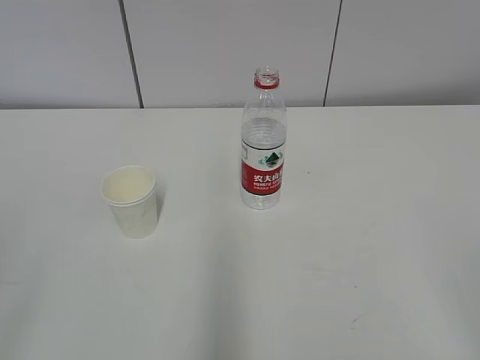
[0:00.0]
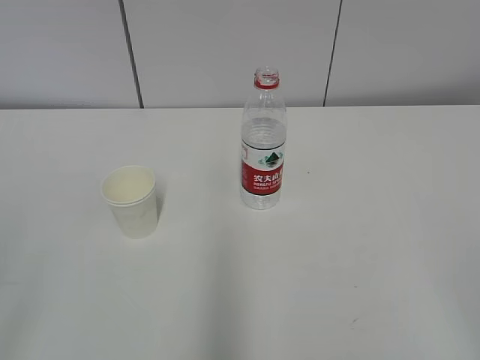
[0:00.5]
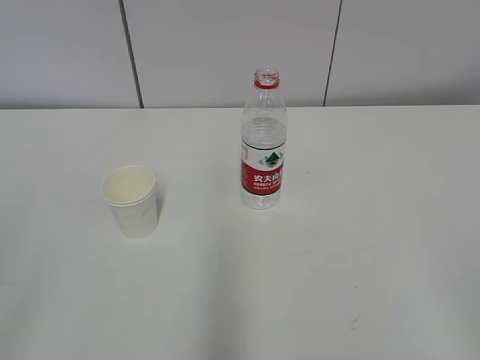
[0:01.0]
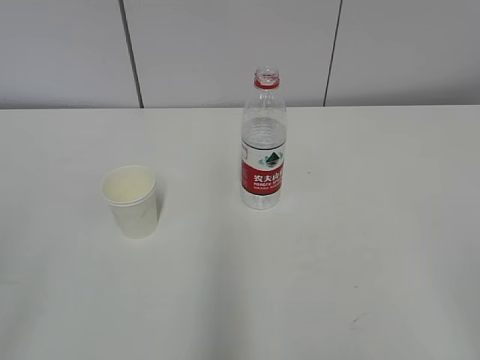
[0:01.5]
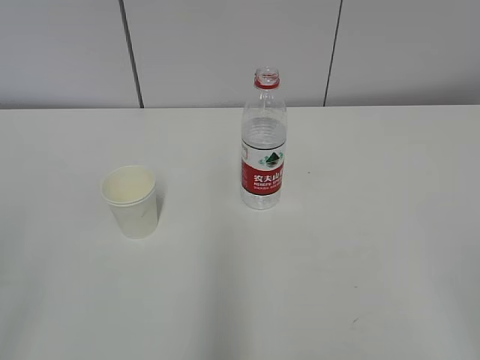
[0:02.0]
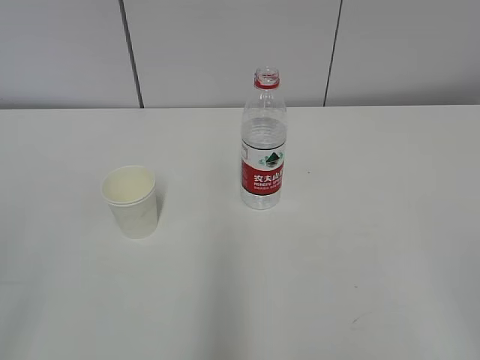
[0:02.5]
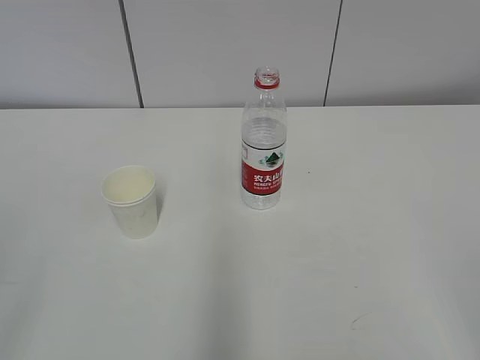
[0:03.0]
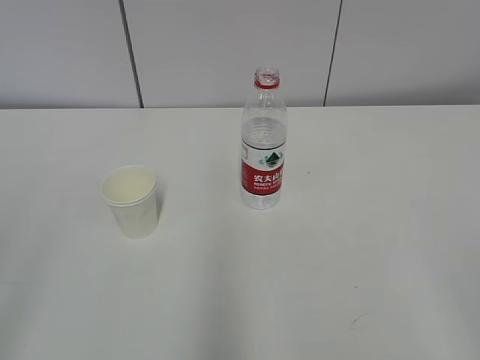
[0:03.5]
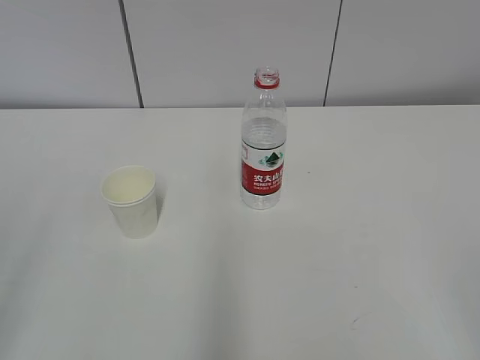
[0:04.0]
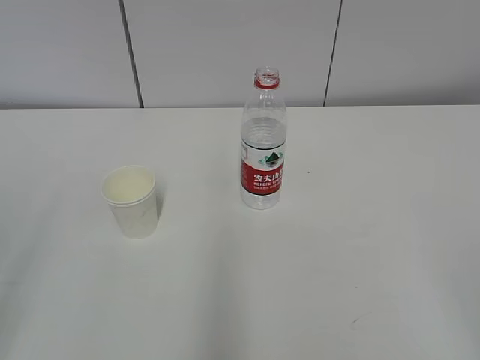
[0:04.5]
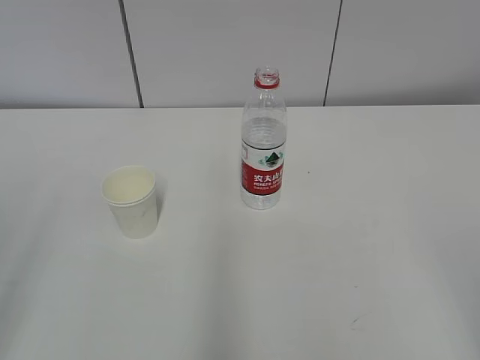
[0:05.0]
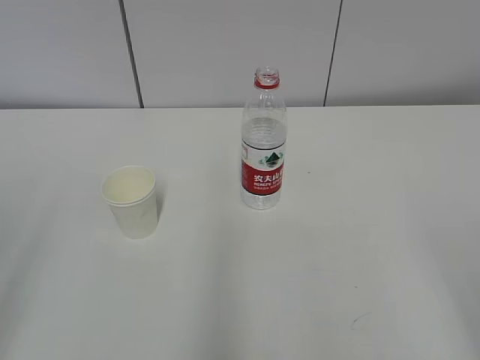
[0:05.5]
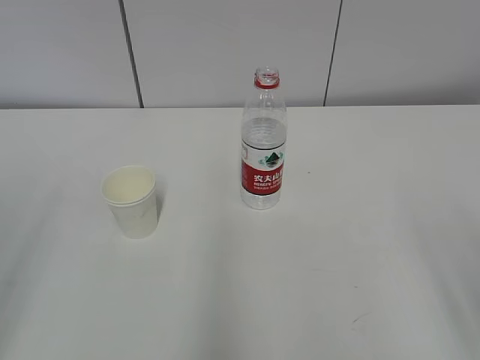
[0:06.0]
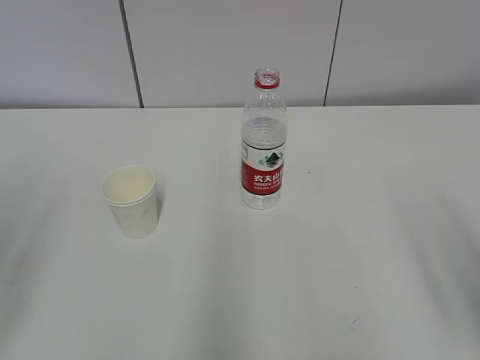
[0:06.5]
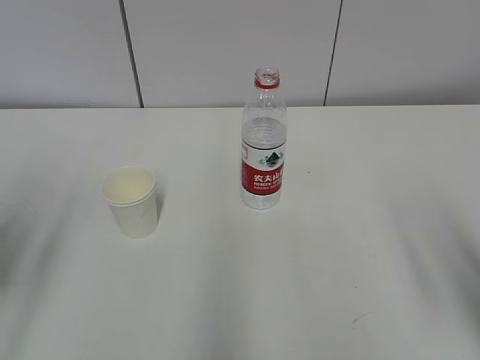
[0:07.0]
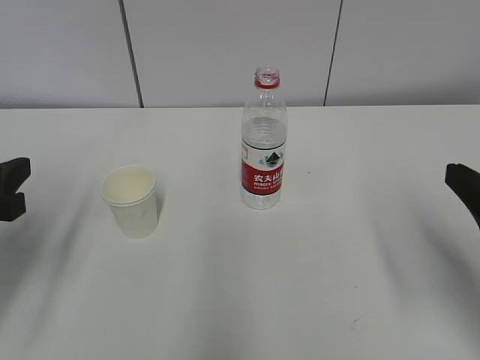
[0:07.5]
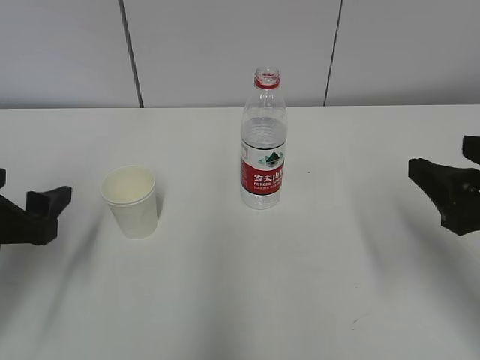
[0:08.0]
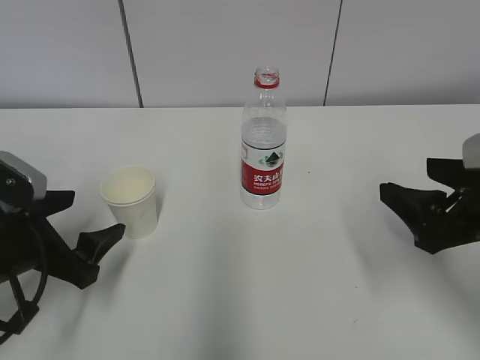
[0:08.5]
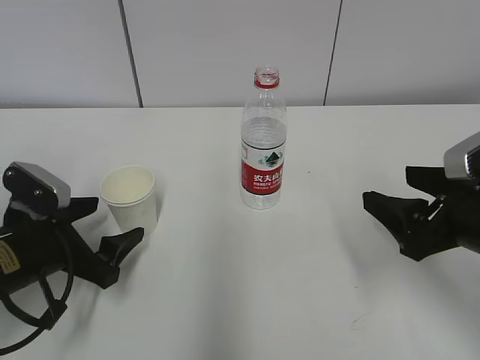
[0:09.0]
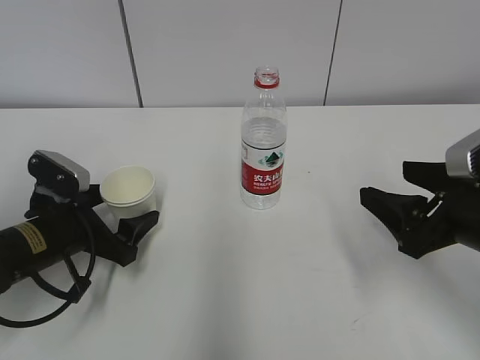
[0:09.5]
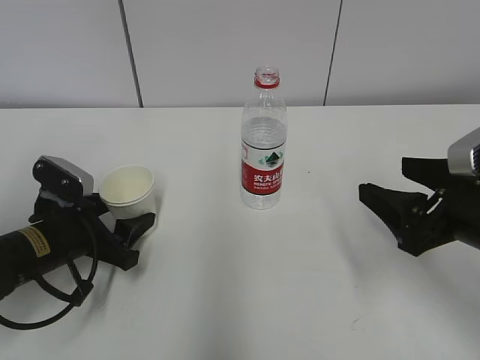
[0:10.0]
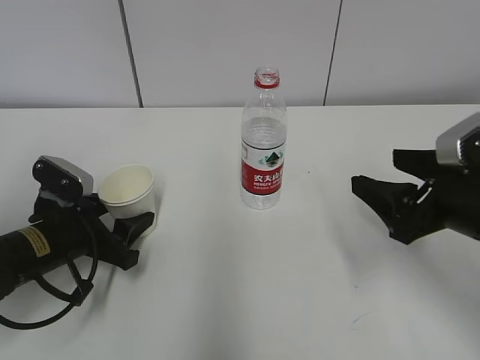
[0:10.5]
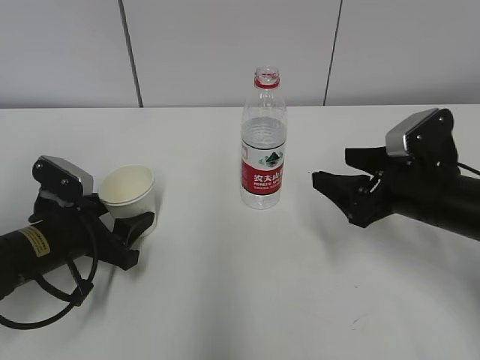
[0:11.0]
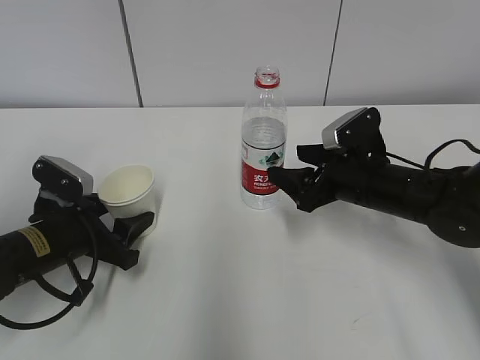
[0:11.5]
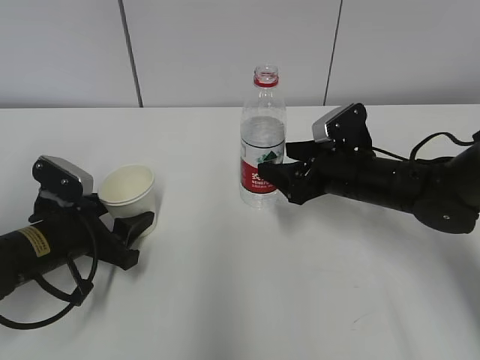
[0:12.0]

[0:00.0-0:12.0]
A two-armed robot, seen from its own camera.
Step, 0.0 to 8.0 s: Grab the paper cup with the left hand.
Step, 8.5 to 11.0 s: Grab the water bottle with the right hand.
6.0 to 8.0 s: The right gripper goes about 15 cm forward. The left gripper travels forward and downward by roughly 20 cm, and opens.
8.0 to 10.0 s: The right gripper moves approximately 5 cm; the left gripper is displaced downward and forward by approximately 10 cm, and closes its fingers.
10.0 to 12.0 s: The right gripper moves forward, downward and to the left, about 15 cm.

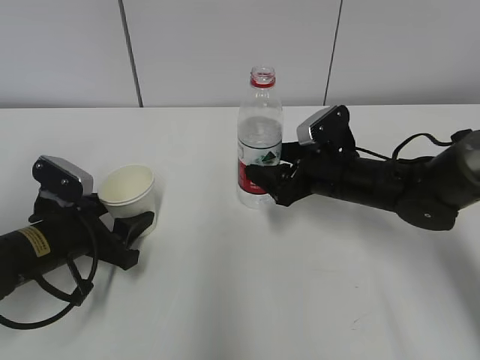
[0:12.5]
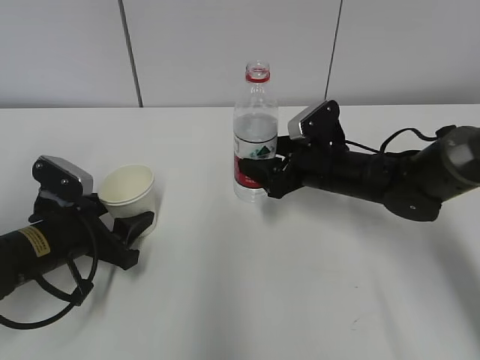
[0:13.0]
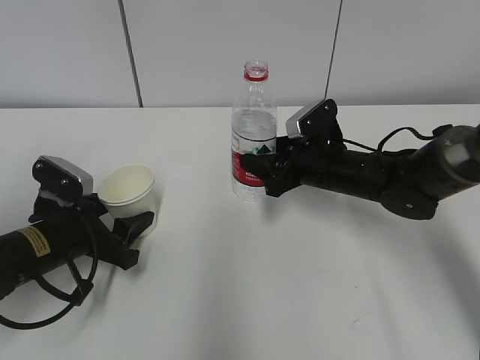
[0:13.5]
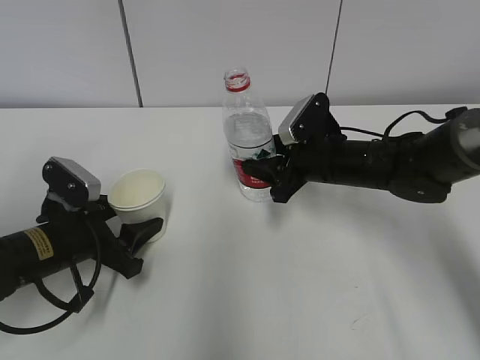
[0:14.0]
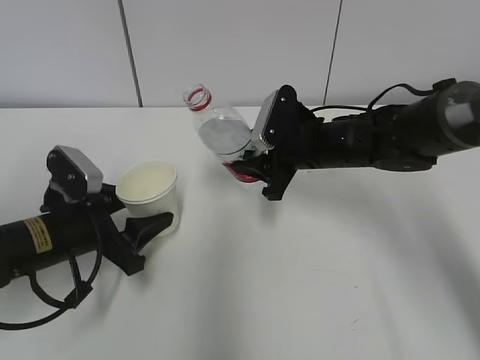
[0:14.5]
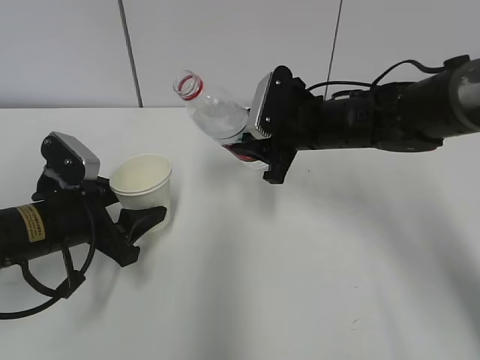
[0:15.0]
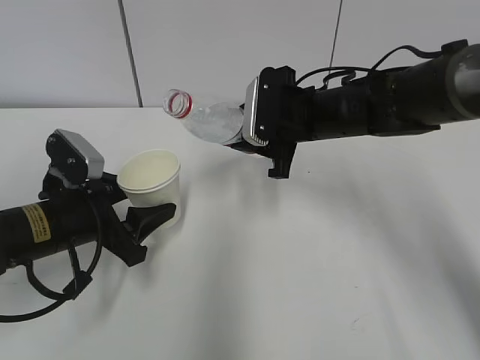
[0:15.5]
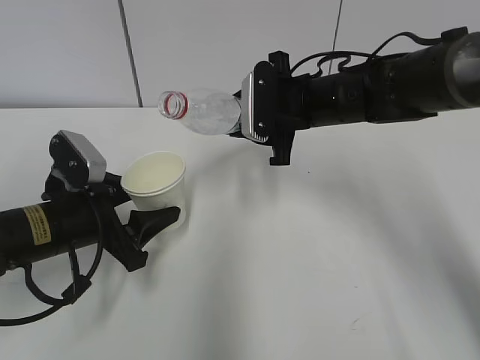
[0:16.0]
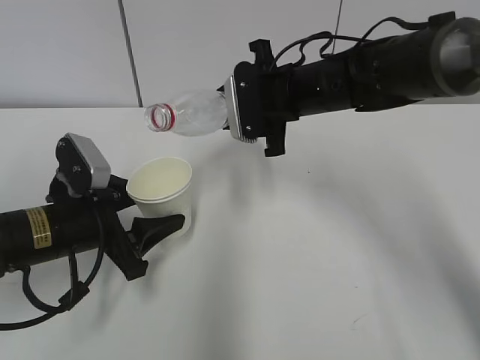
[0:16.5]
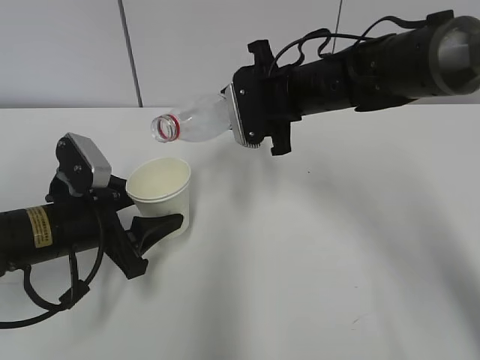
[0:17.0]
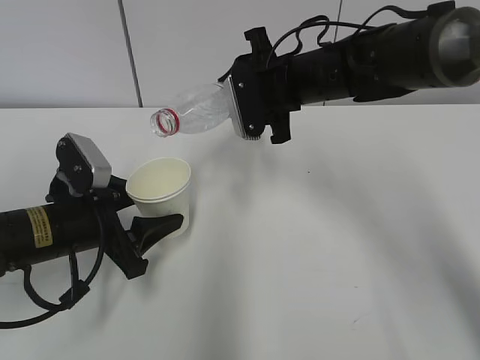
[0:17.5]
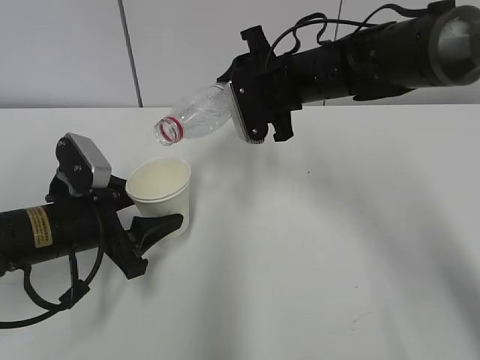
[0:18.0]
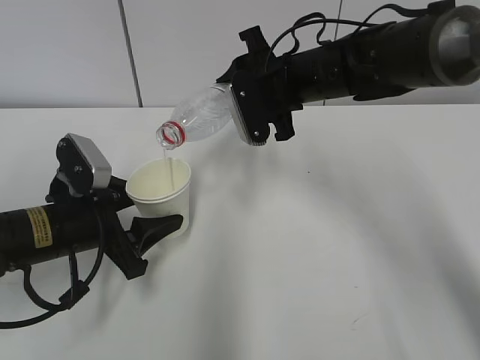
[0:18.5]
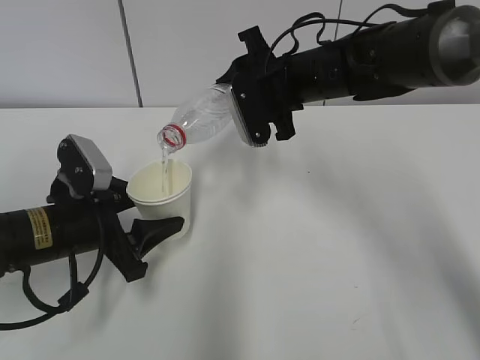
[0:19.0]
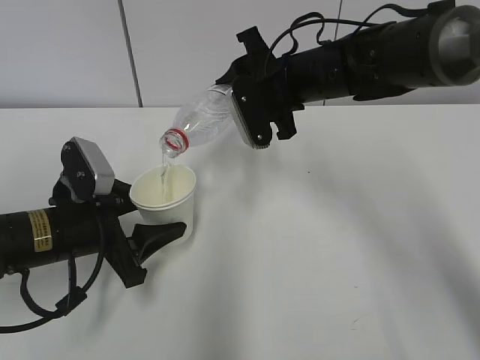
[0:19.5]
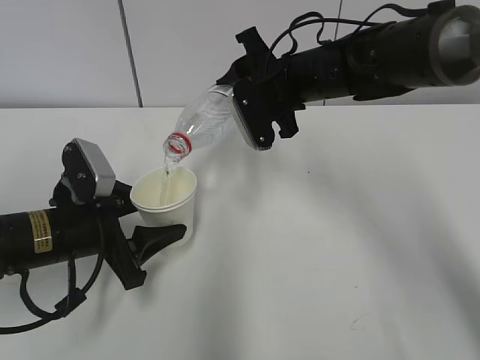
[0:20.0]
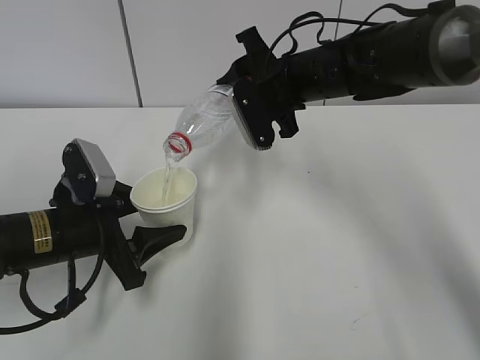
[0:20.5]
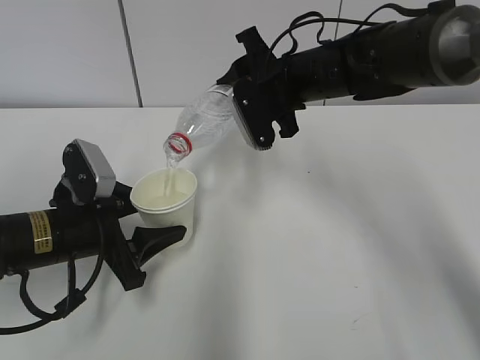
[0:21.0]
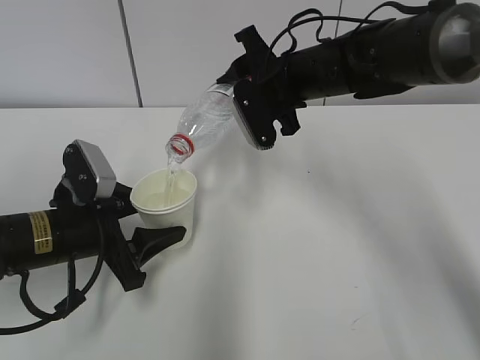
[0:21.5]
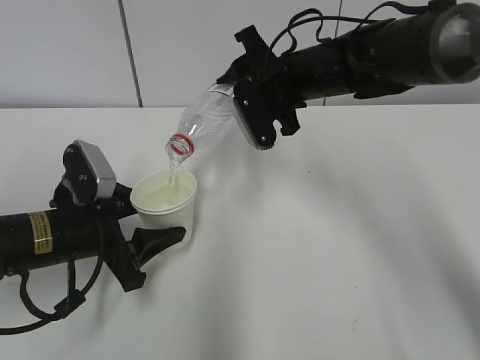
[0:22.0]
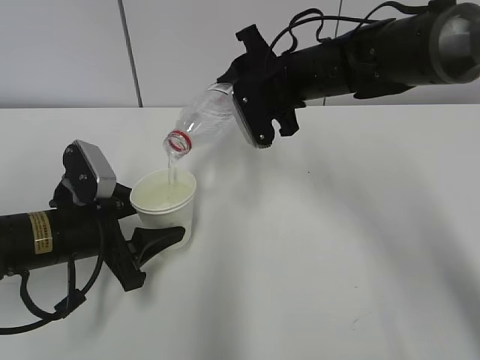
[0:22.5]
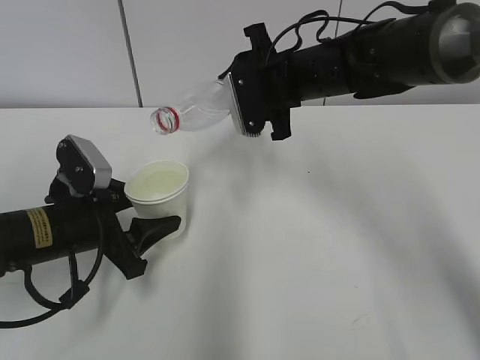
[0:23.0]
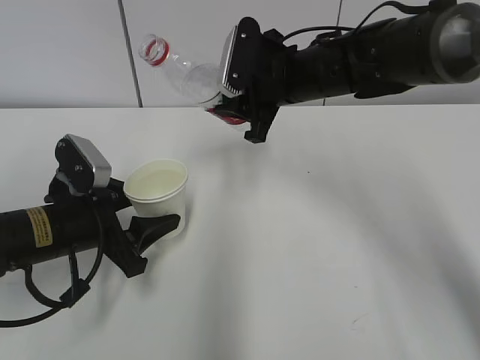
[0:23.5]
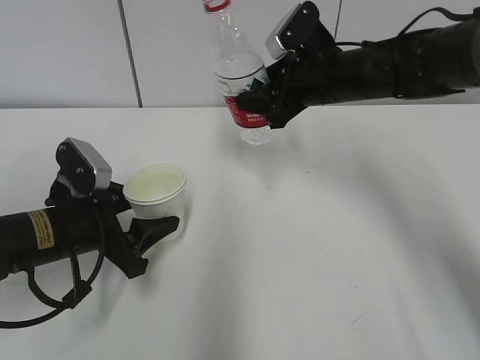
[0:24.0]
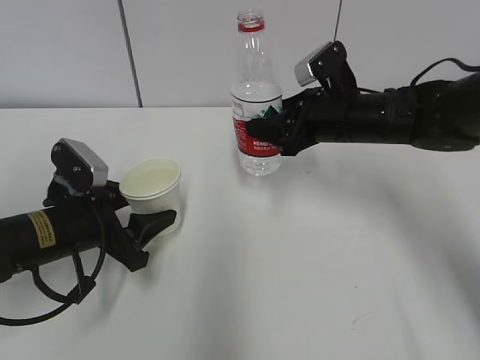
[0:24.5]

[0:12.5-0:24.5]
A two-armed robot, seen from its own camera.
Step, 12.5 to 15.0 s: Lift the paper cup with the left hand.
Step, 15.5 to 19.0 s: Fill water with the left hand.
Step, 15.5 to 19.0 s: Pour water with the right hand.
Step, 19.5 to 20.0 s: Collect water with the right hand.
12.5 to 14.5 s: The right gripper moves roughly 5 cm, and closes up.
14.5 to 16.5 s: The right gripper goes roughly 5 cm upward.
16.5 to 18.5 s: The grippers make only small movements.
18.5 to 20.5 s: The grippers make only small movements.
20.5 to 22.5 s: Neither gripper changes place.
22.5 to 24.5 s: The right gripper is displaced to the right by about 5 cm.

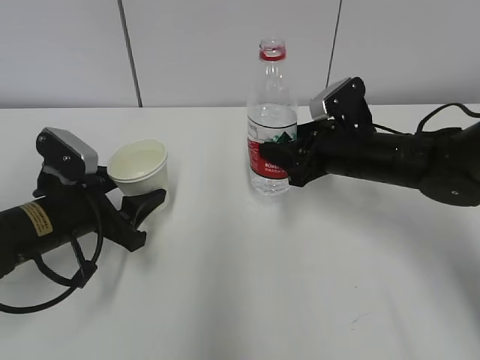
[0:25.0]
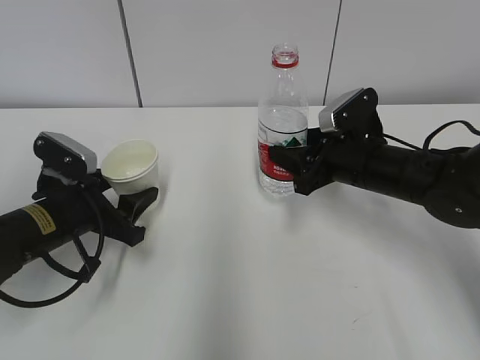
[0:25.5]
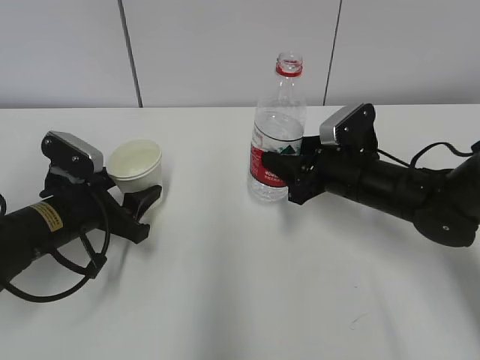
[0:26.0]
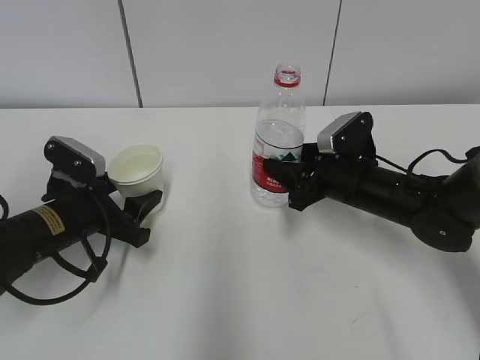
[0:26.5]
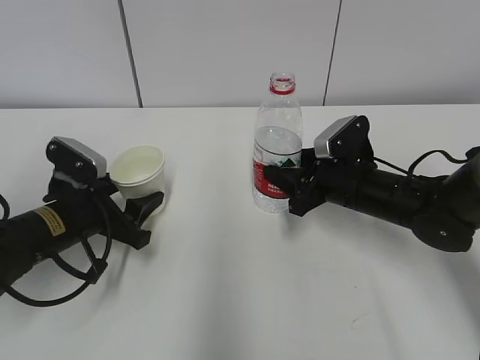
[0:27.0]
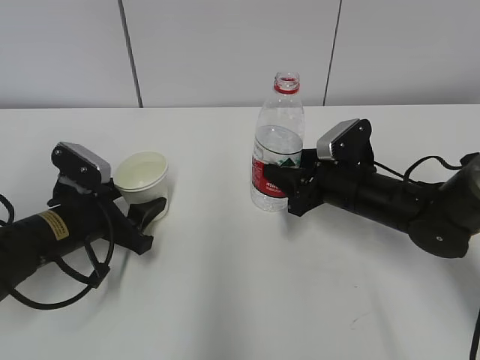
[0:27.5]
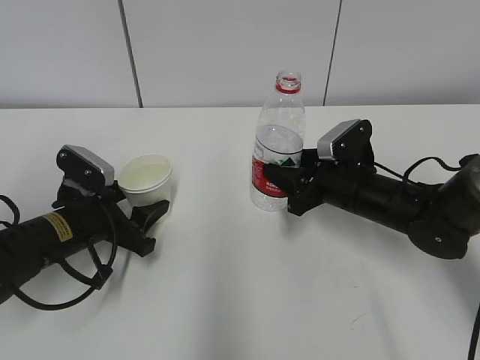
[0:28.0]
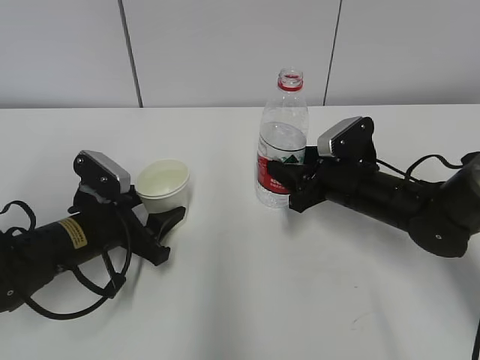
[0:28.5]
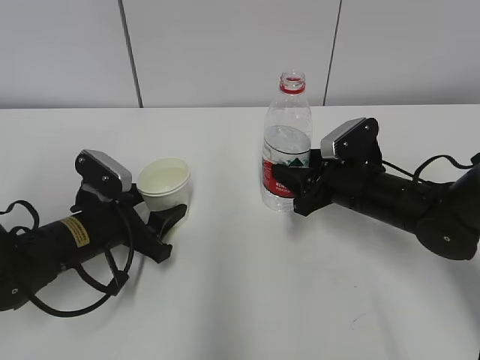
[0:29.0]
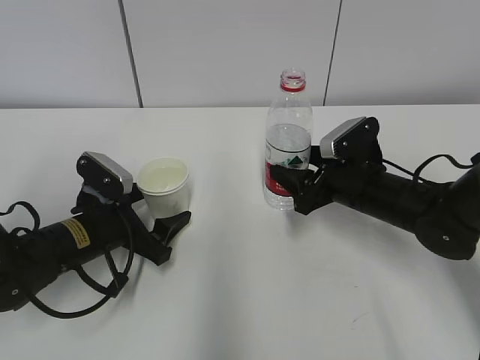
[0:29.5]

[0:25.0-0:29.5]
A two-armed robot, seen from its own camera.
25.0 to 27.0 s: The grippers move only a little.
27.0 to 29.5 s: The right gripper opens up; the left gripper opens up.
